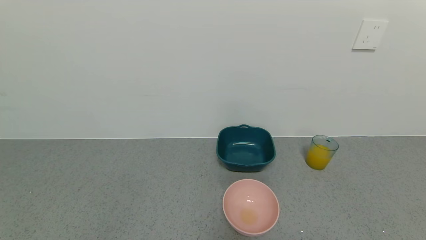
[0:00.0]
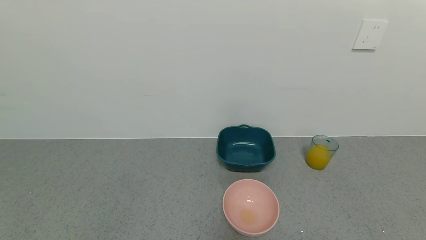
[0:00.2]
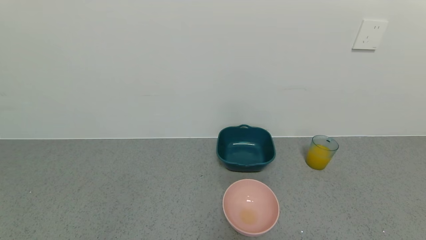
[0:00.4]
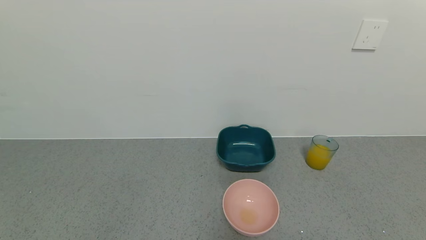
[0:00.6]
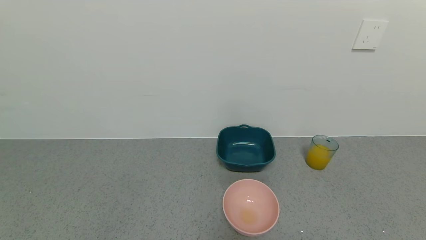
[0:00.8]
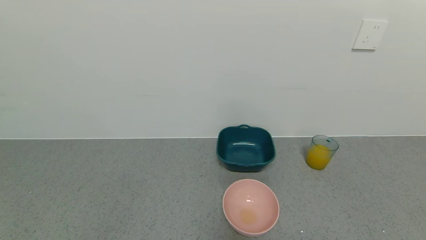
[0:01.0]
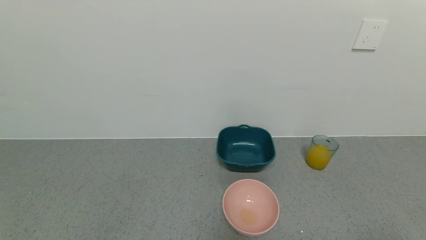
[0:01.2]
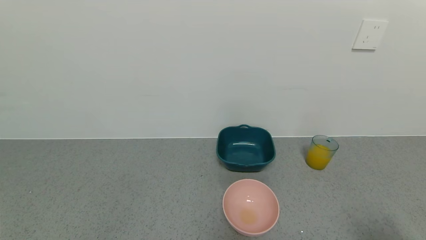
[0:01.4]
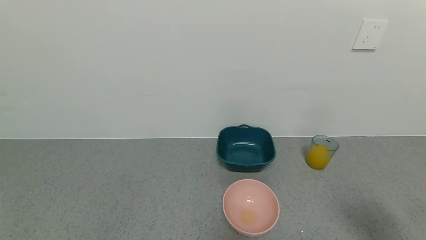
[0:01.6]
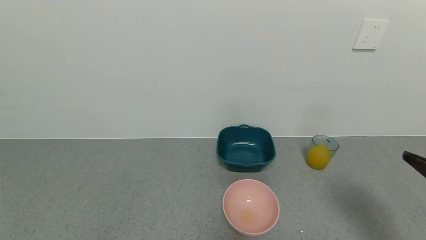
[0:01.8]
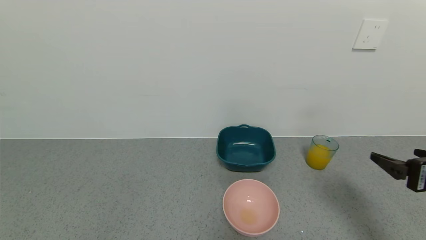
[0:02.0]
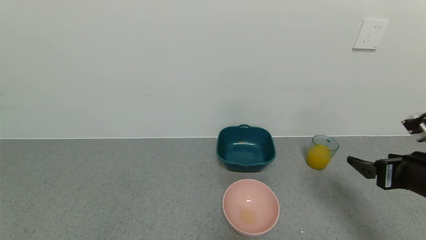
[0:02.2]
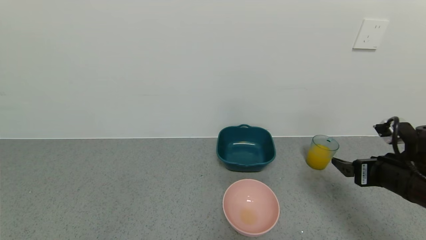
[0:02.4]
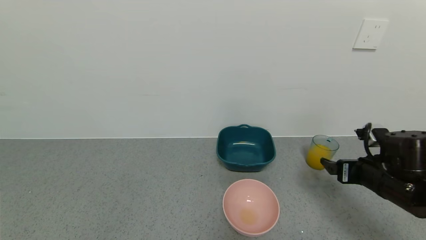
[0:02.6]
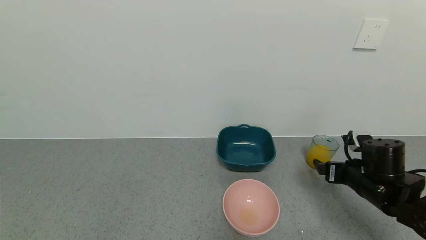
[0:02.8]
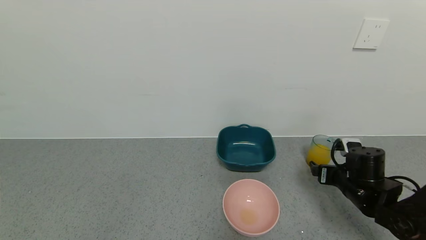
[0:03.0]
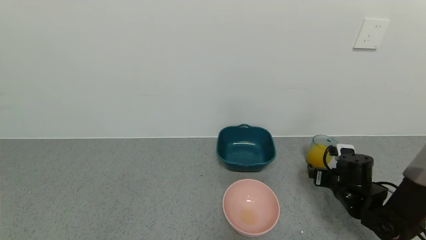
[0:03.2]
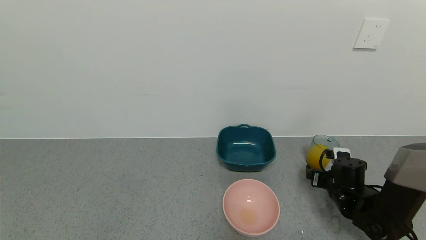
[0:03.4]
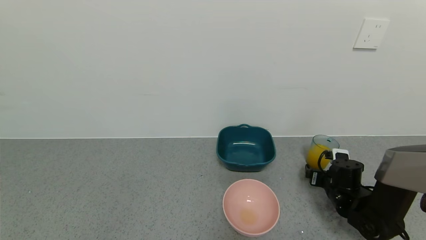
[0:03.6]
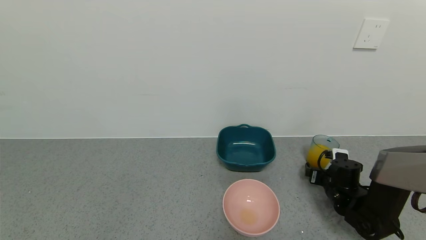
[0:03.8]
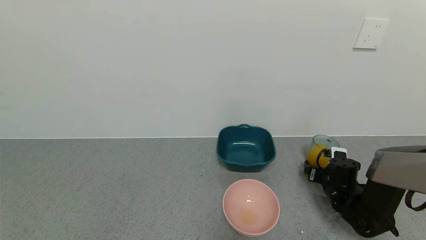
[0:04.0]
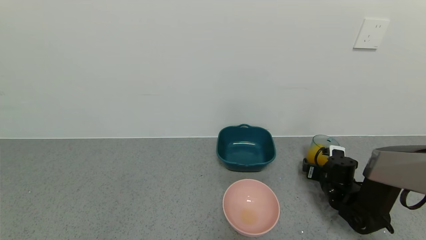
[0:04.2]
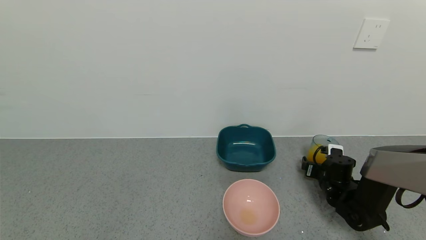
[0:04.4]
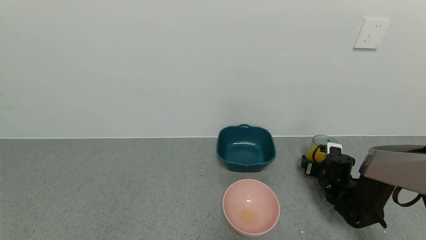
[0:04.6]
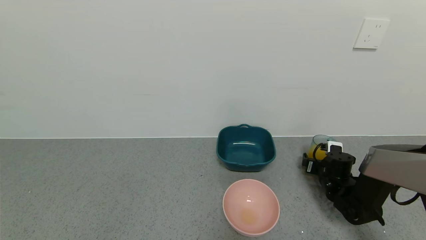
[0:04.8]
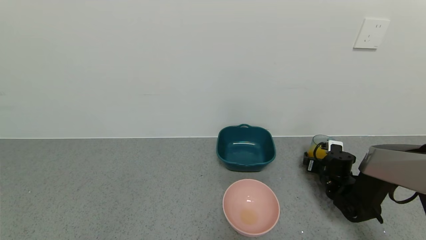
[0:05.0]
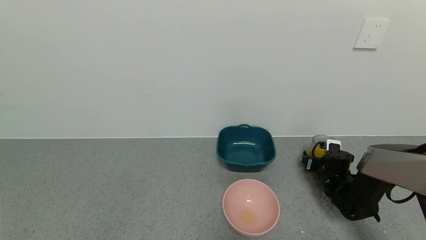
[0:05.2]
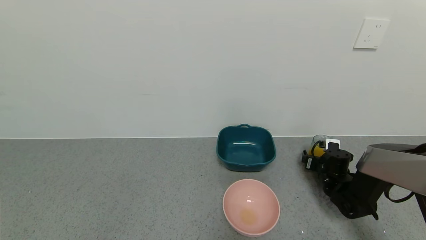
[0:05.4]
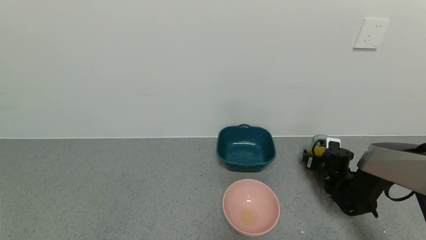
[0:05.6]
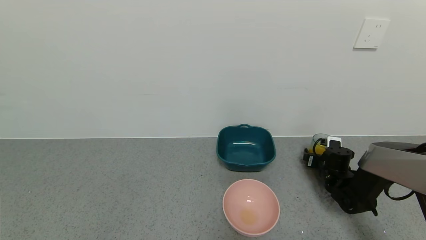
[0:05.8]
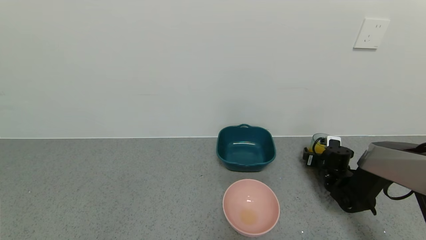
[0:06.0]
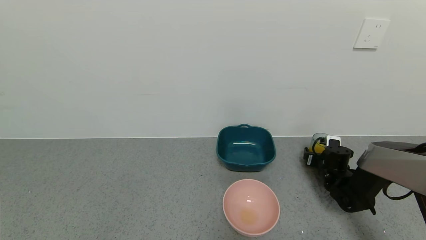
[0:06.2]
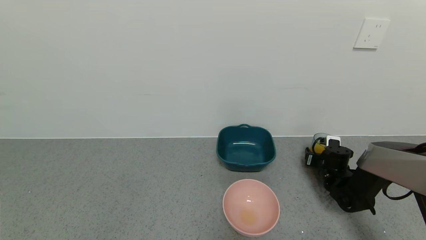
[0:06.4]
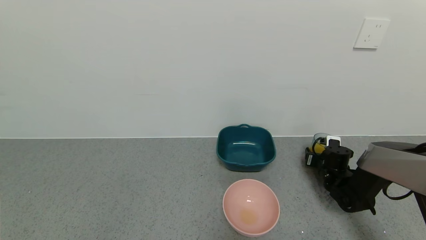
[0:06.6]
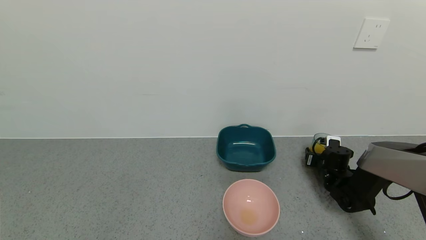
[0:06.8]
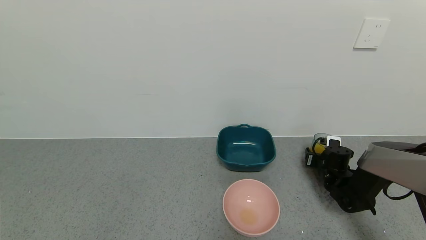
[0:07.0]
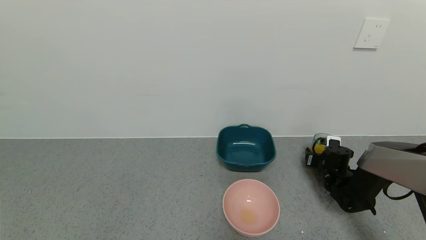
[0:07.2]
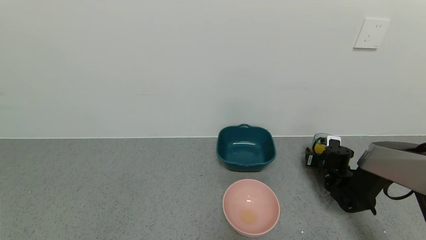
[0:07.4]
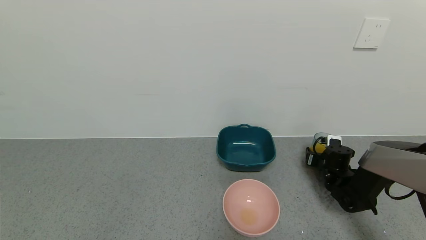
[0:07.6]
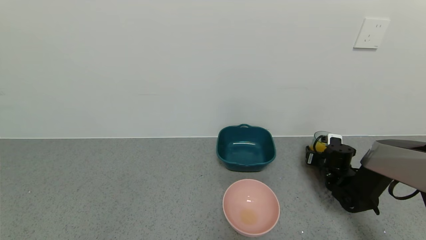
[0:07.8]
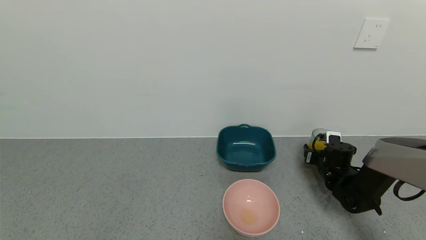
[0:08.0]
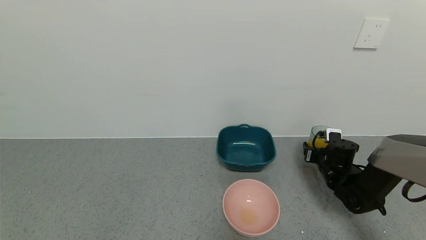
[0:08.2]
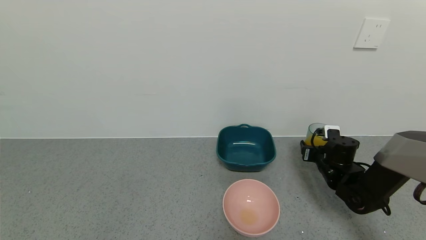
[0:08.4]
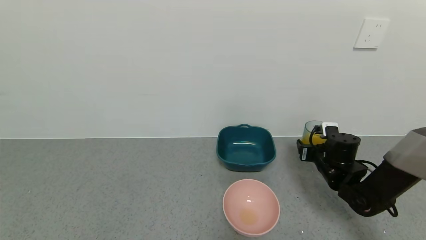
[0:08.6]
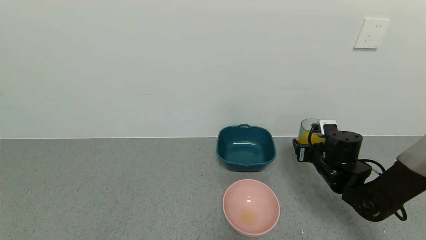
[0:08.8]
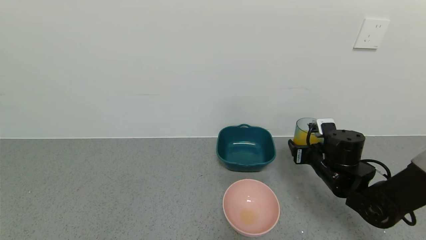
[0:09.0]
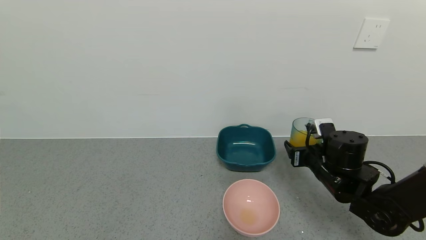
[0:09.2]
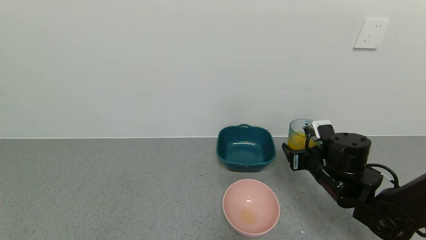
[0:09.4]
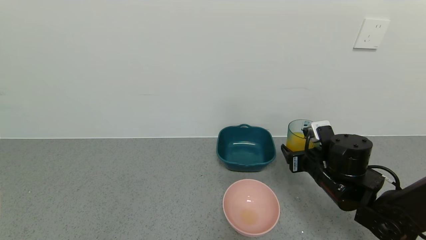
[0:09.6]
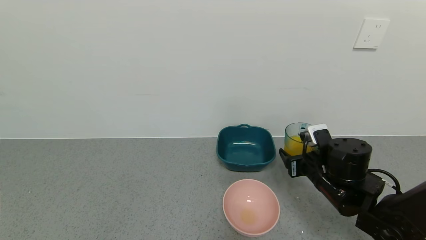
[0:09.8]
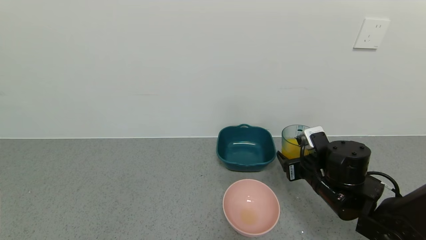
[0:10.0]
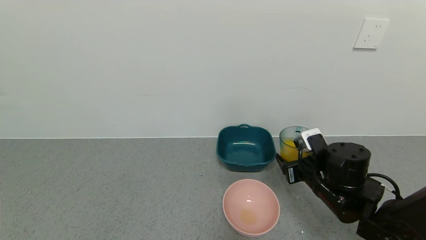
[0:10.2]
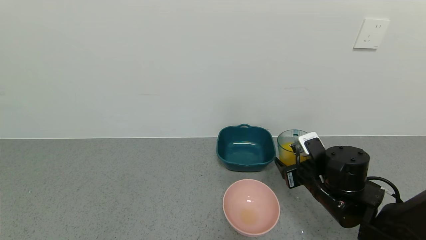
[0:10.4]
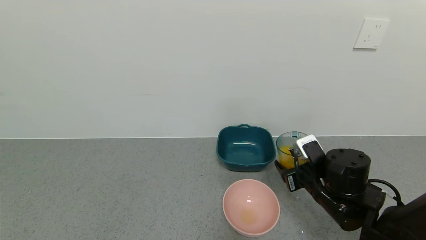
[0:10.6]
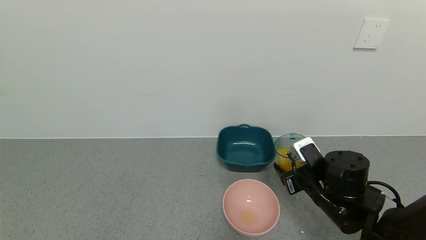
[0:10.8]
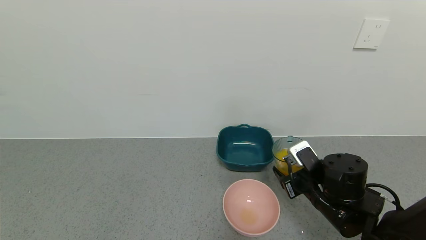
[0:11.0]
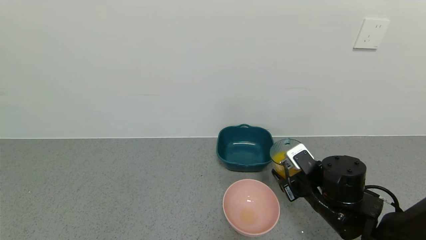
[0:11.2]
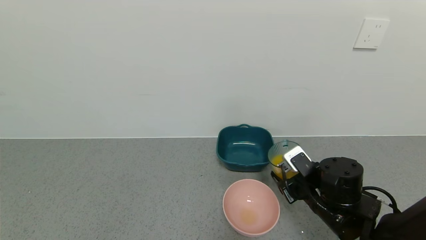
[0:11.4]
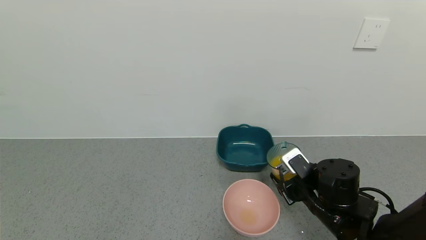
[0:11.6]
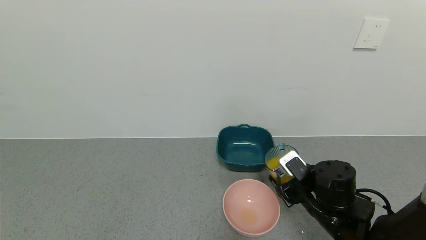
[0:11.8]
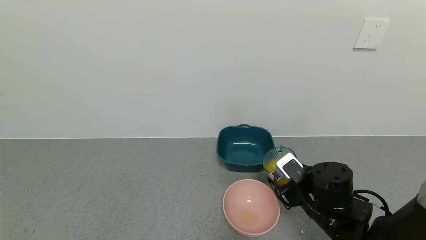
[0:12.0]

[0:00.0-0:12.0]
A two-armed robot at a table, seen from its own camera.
Task of the whole recording: use a gripper to pick up the cup and pour the liquid into a bowl or tray.
Step, 0:00.0 to 0:07.2: Grasp the glass of orange juice with the right gripper.
0:00.0 to 0:01.6: The right gripper shifts about 20 cm upward and forward.
0:01.6 to 0:03.0: The right gripper heads forward and downward, covering approximately 25 cm.
0:03.0 to 0:04.4: The right gripper travels downward and forward by about 10 cm.
0:04.4 to 0:06.0: The right gripper shifts by about 5 cm.
0:07.6 to 0:09.0: The right gripper heads upward, backward and to the left, covering approximately 15 cm.
0:09.0 to 0:10.4: The right gripper heads backward, covering approximately 5 cm.
0:10.4 to 0:12.0: The grippers stay close to where they were, moving slightly.

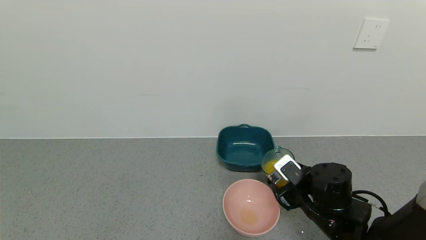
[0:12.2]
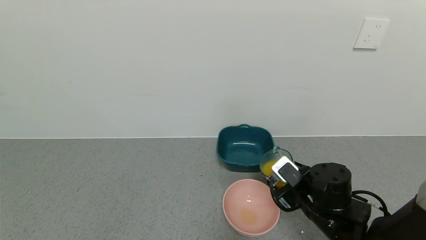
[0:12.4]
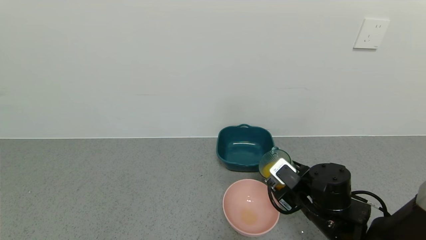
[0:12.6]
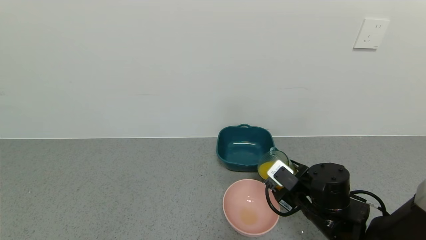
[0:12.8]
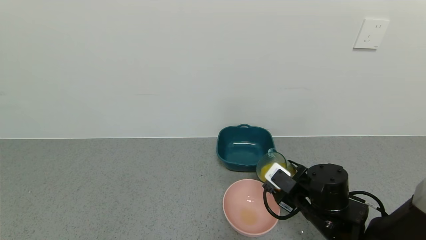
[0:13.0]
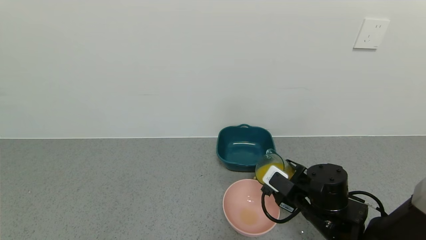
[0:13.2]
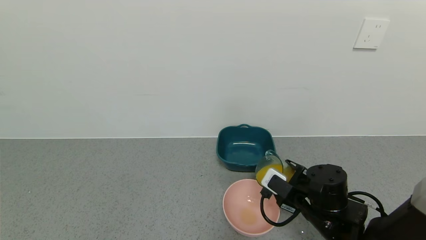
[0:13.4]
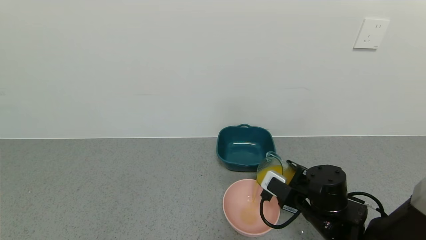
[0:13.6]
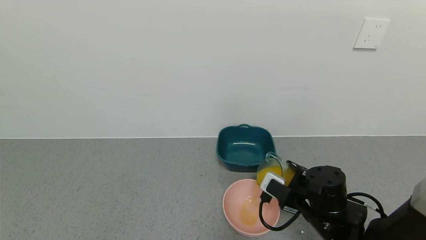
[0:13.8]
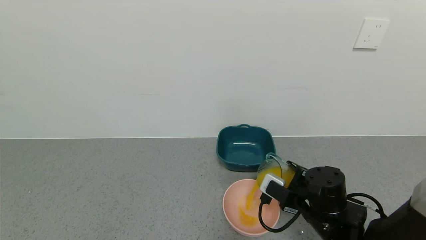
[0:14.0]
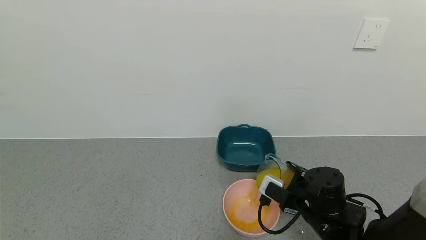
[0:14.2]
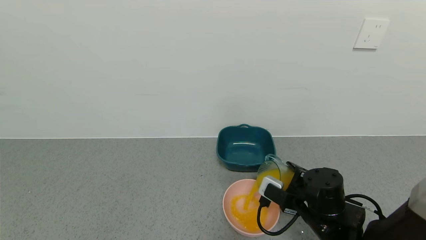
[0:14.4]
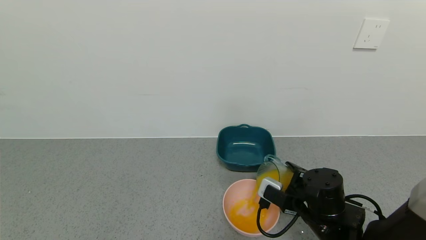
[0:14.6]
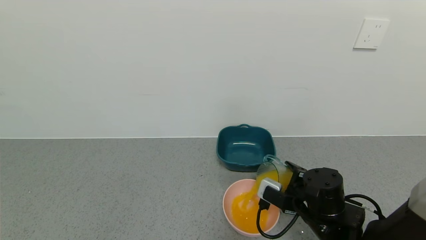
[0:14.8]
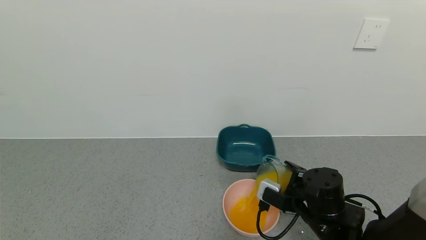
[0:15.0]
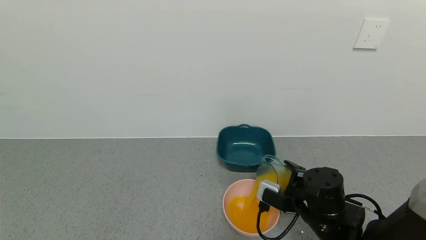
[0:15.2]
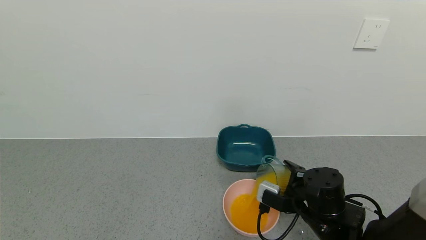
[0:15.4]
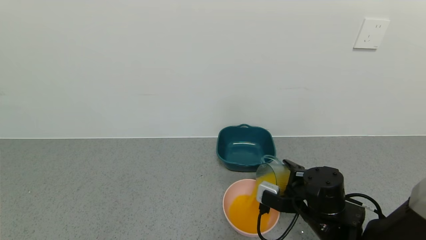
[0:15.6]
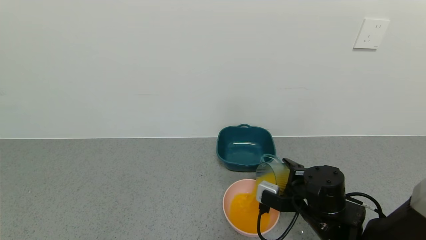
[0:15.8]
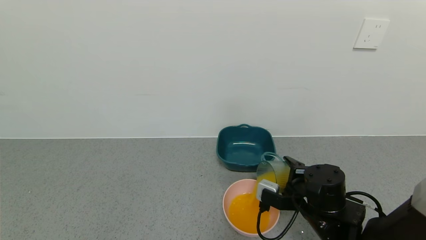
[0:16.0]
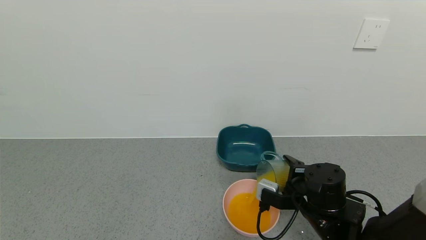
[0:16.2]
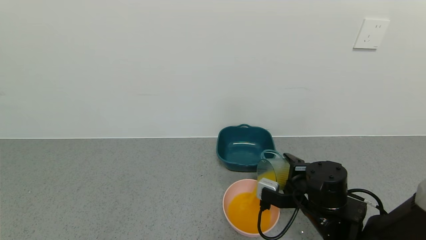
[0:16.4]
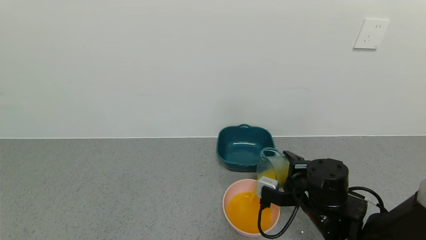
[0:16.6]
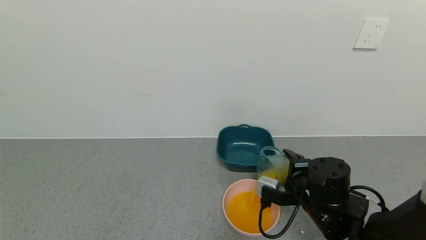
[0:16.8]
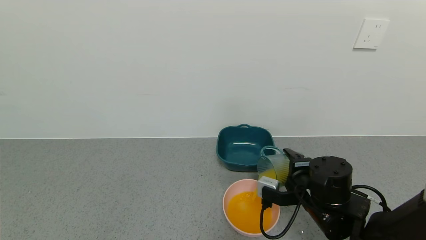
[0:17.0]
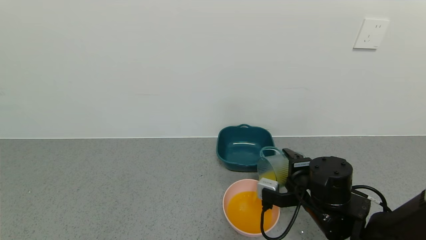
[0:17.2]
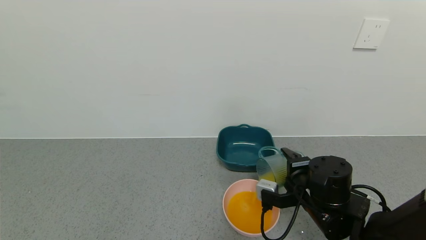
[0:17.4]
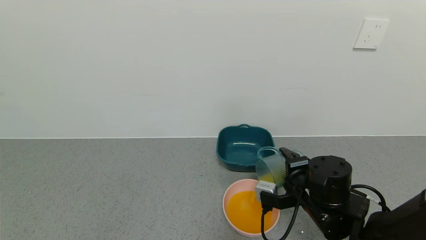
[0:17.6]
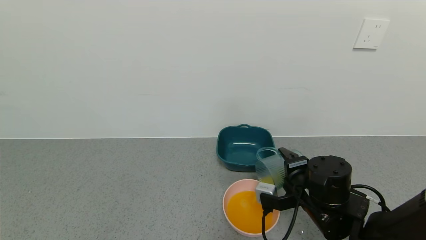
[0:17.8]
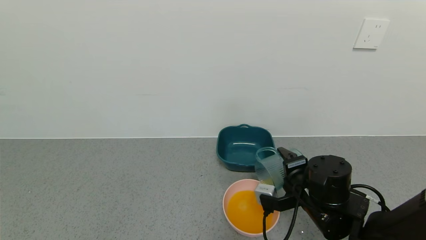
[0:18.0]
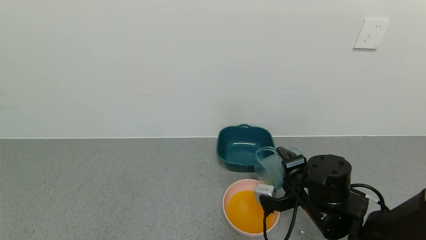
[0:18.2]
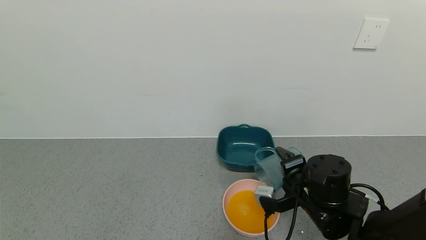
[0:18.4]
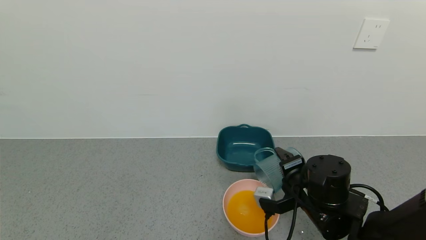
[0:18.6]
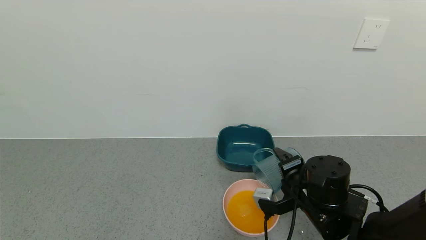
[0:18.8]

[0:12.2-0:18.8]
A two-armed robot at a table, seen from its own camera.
Task of the whole recording: use a gripper to pick up the cup and pour the liquid into a bowl or tray.
0:13.8 to 0:15.4: The grippers move only a little.
0:15.4 to 0:17.2: There are only small adjustments of the grippers.
0:17.2 to 0:18.8: The grippers move only a little.
